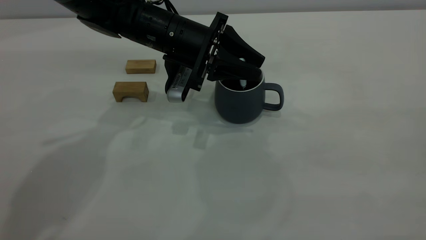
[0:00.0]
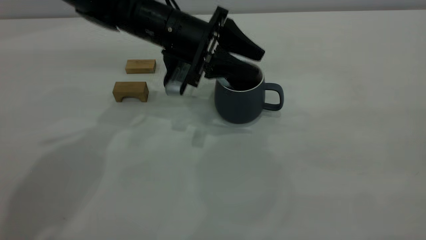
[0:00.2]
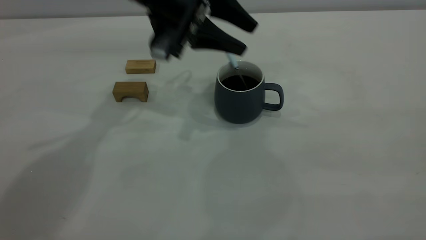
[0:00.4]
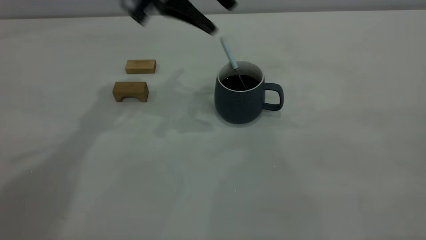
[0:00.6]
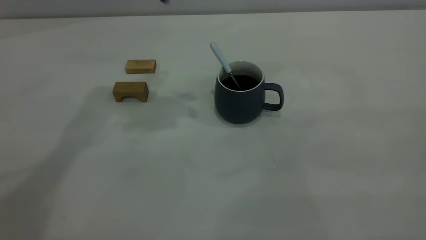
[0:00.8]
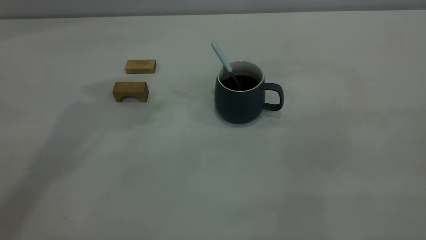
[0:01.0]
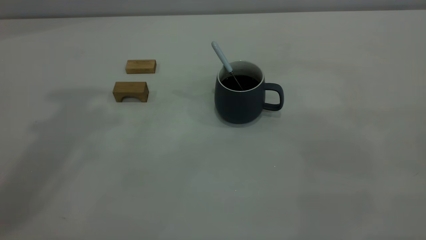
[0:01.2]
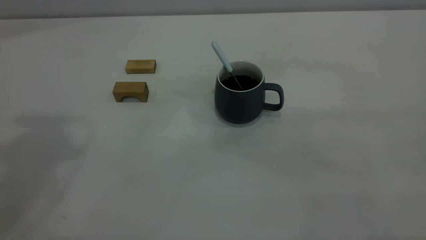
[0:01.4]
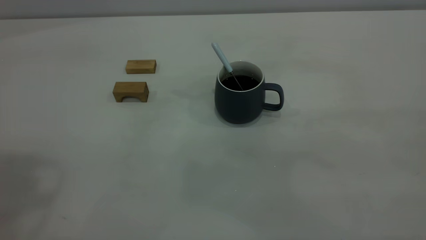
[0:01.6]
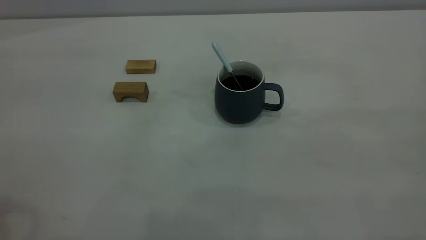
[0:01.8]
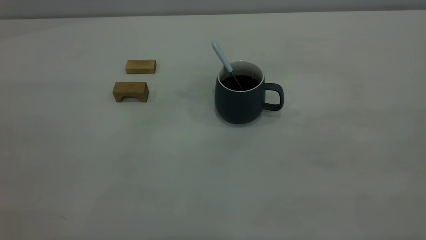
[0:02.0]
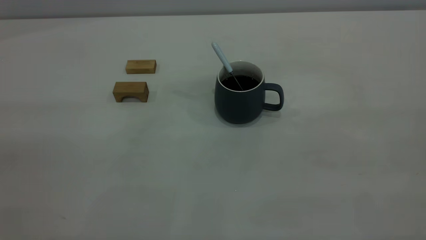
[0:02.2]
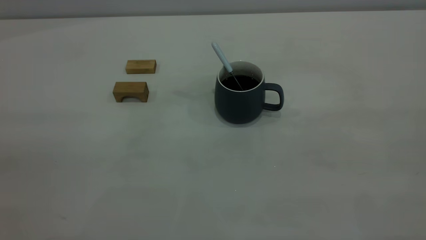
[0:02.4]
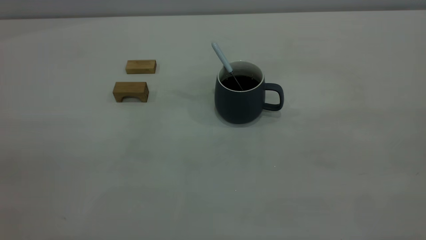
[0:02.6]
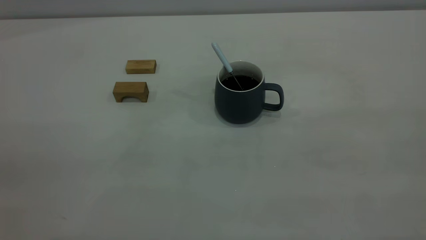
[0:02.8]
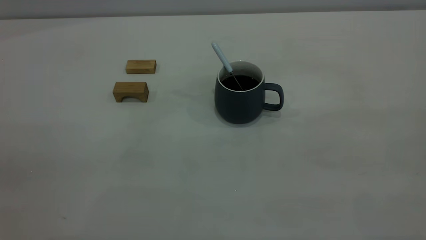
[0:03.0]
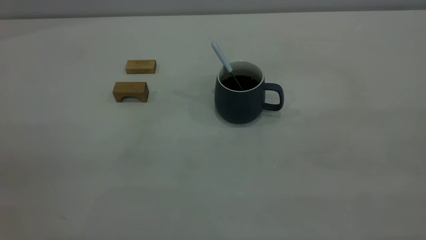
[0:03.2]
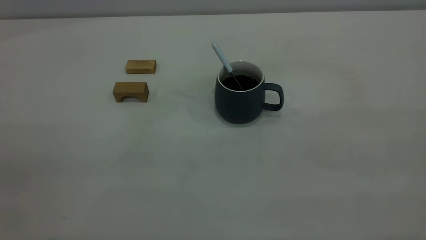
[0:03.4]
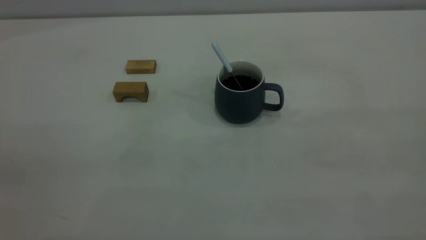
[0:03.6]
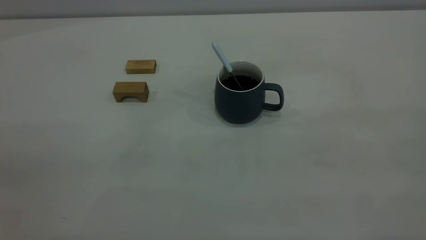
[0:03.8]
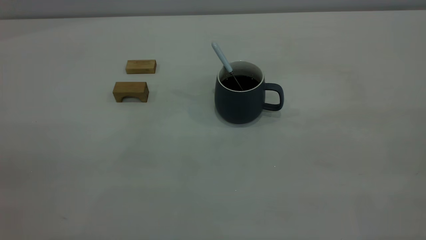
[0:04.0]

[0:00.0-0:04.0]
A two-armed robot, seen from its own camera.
0:00.0 to 0:01.4: The left gripper travels upward and to the left by about 40 cm.
0:02.6 to 0:04.0: Both grippers stay put.
